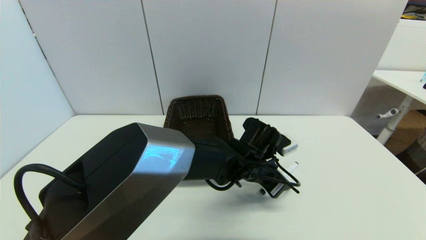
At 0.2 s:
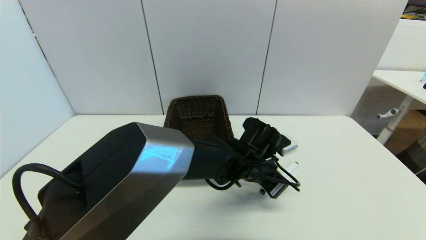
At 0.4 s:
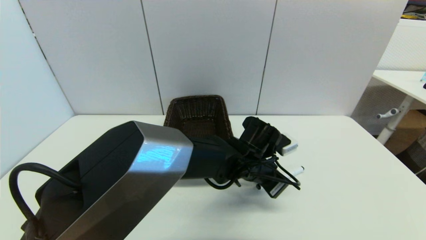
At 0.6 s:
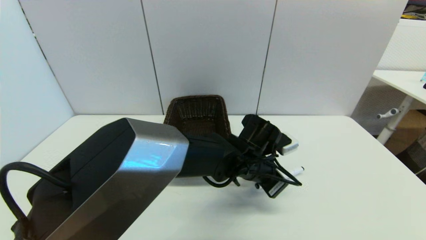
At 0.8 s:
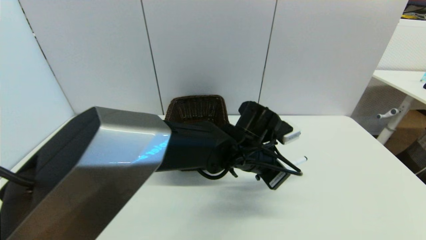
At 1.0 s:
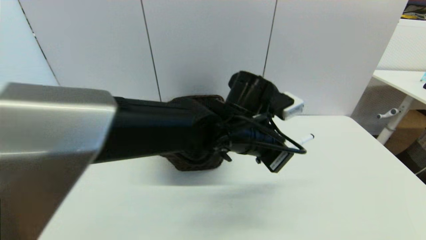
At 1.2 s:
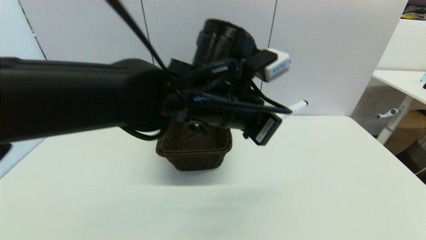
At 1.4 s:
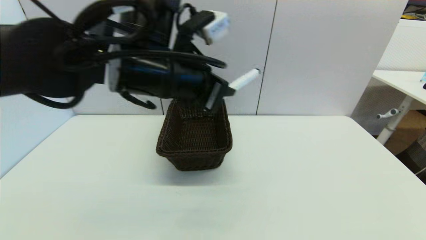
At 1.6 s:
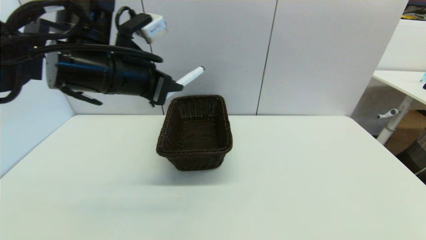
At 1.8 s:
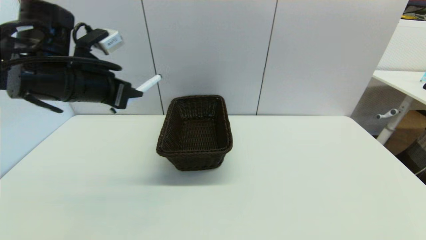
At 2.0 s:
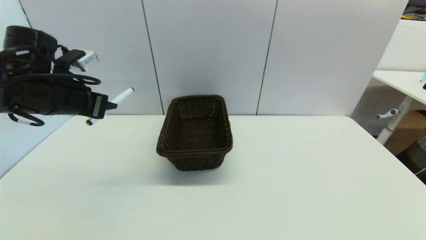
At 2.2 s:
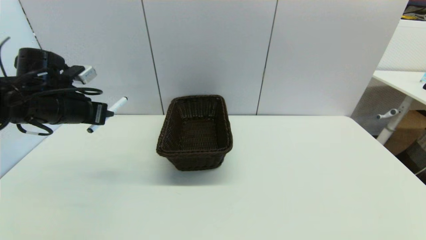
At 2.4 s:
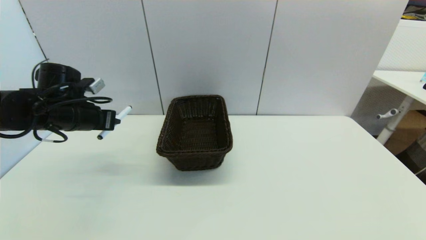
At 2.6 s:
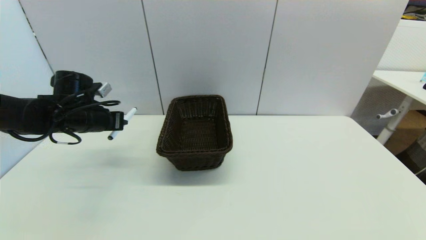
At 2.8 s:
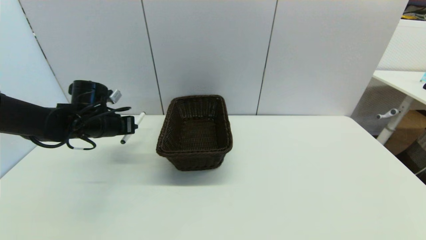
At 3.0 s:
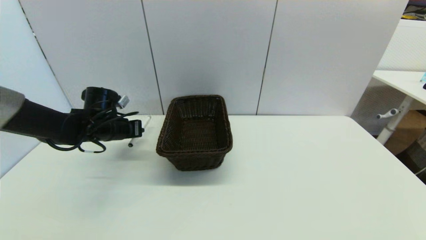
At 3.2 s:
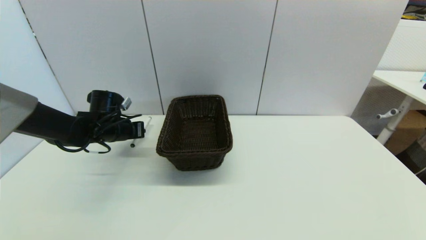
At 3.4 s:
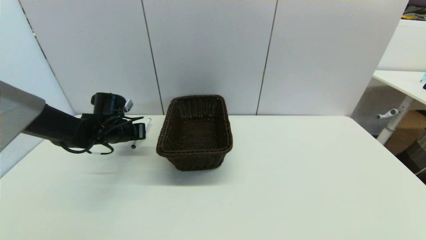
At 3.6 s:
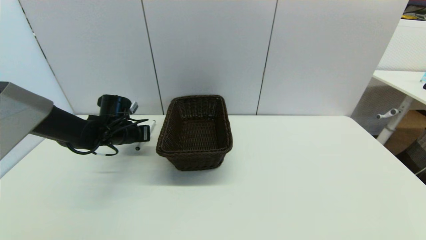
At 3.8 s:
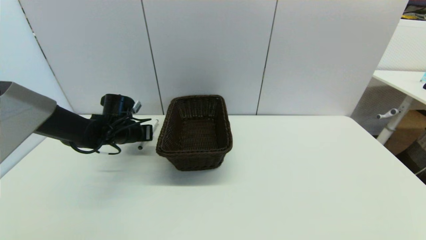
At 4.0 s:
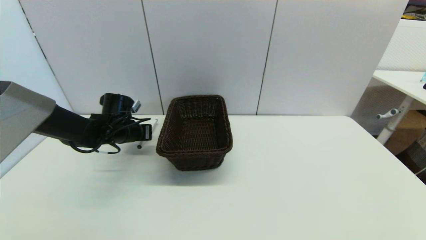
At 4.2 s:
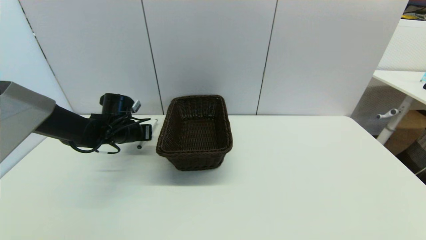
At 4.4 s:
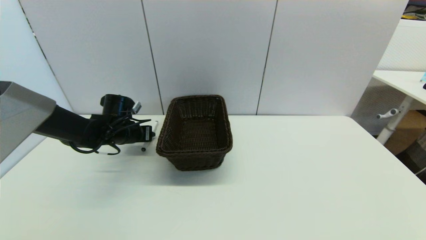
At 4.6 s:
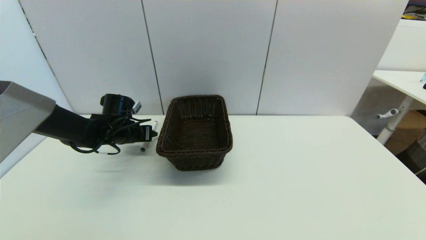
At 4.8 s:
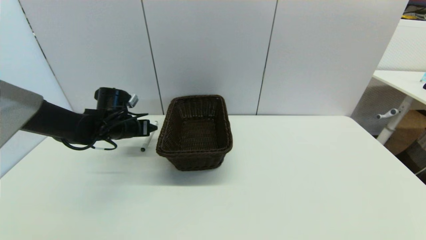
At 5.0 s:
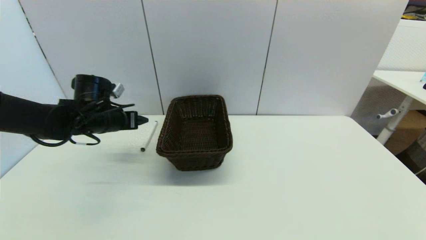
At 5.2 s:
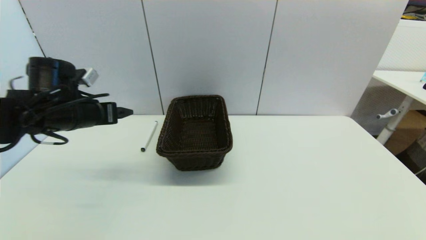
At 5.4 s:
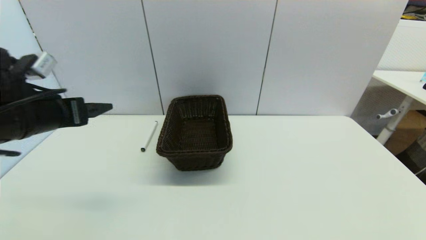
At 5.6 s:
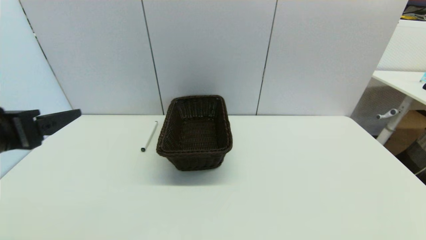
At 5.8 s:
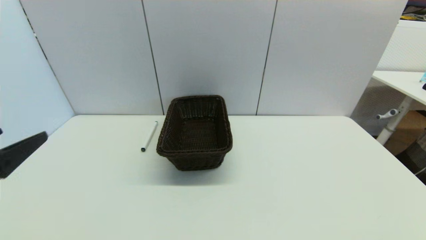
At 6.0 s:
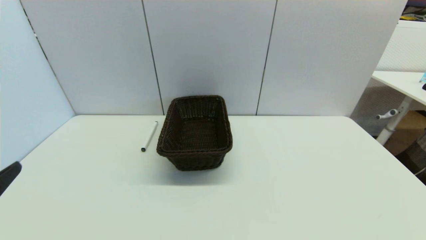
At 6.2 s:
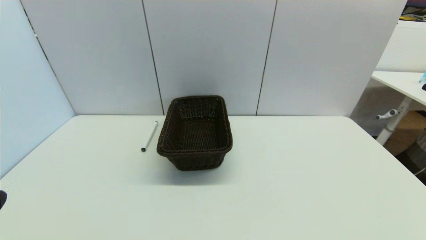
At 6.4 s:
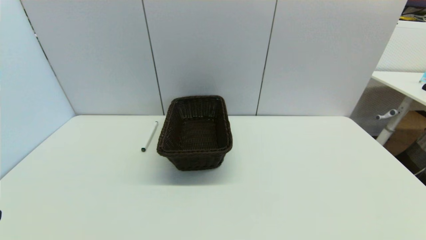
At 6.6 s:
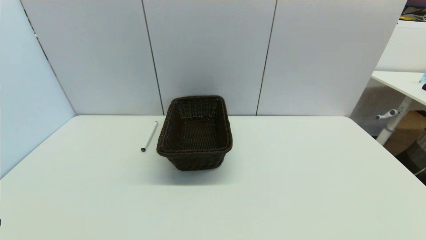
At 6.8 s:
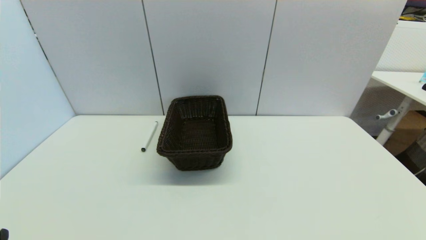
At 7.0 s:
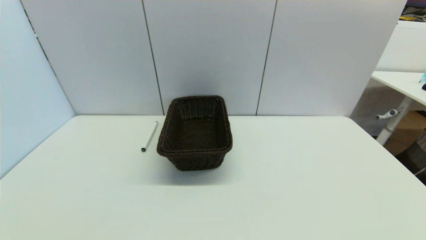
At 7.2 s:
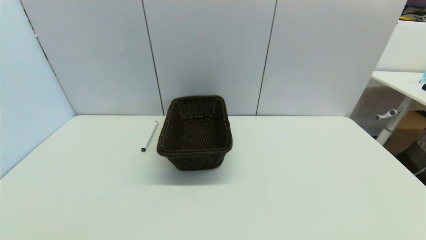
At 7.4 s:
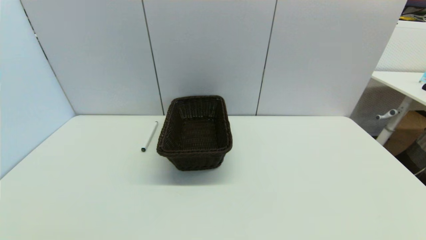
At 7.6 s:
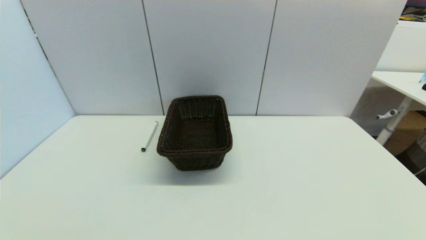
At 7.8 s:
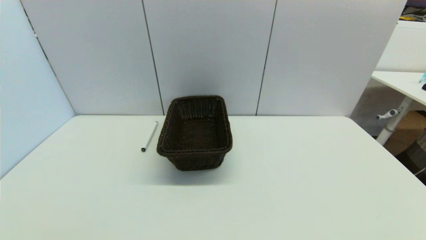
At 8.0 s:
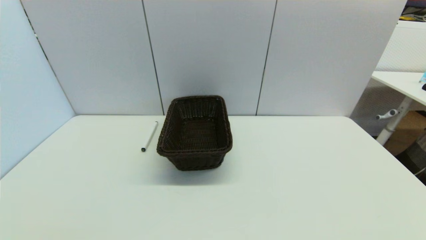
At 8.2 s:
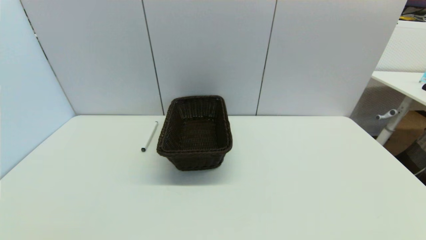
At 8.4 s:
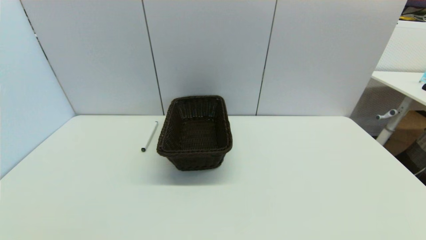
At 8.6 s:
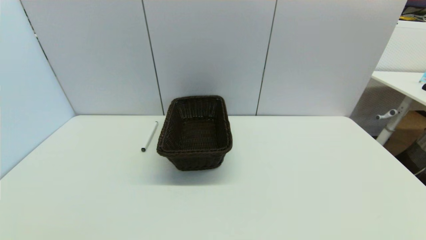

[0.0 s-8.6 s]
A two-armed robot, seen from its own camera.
Task of the whole recording: put the black marker in the designated position.
Step, 0.6 to 4.4 s: Place the Marker pen on the table with left gripper.
0.0 to 1.4 s: The left gripper moves upward and to the left, roughly 25 cm, and closes up.
1.4 to 2.8 s: The left gripper travels to the left, downward and forward by some 30 cm.
2.8 to 4.4 s: The left gripper moves about 5 cm.
4.4 to 5.8 s: The left gripper travels backward and upward by roughly 35 cm, and opens its fingers.
5.8 to 7.2 s: The left gripper shifts some 20 cm downward and backward.
7.2 to 8.6 s: The two grippers keep their place.
